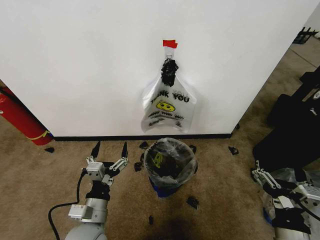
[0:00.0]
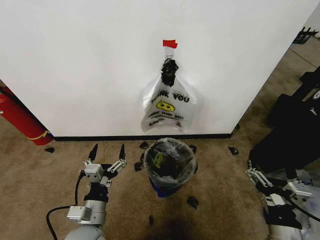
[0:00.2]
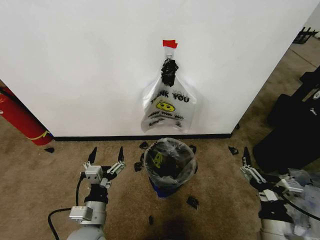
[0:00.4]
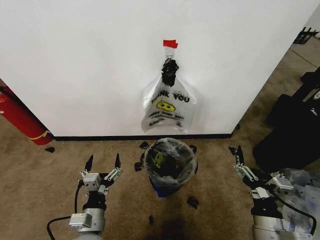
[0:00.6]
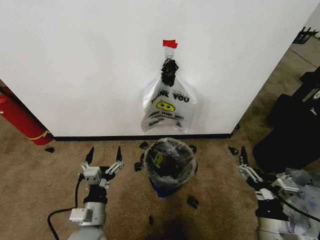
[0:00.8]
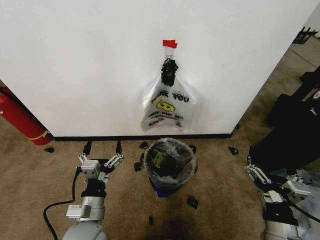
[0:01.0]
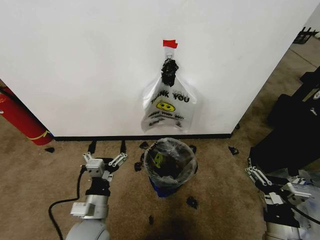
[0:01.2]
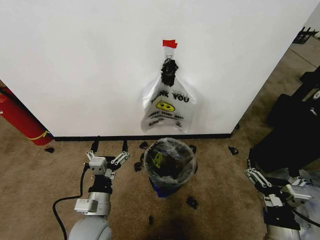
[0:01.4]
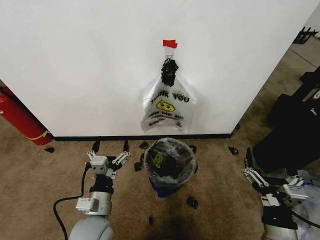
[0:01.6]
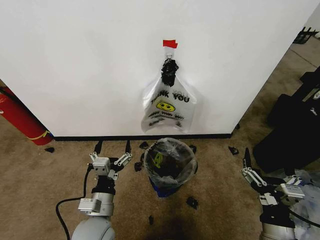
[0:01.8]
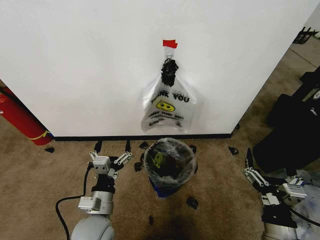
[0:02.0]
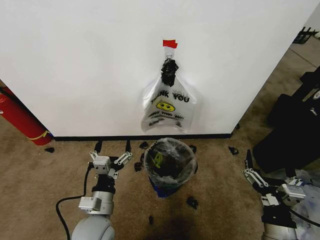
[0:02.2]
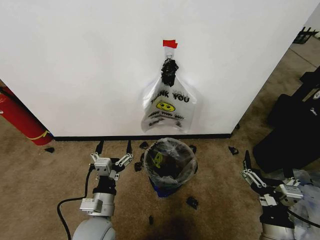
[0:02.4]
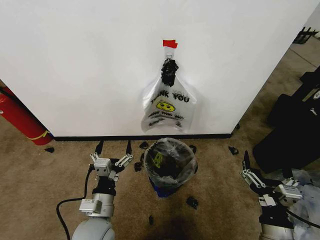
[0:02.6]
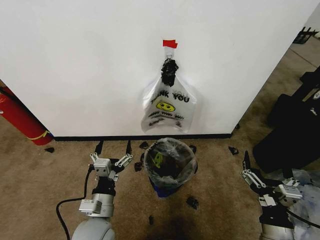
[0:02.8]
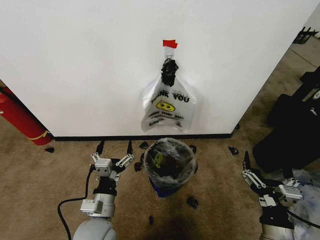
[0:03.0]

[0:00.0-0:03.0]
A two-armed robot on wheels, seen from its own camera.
Task of the whole recording: Pick up the garbage bag from the wall and place it over the trash bin.
0:00.0 to 0:01.6: The grippers move only a little.
0:01.6 to 0:03.0: Neither gripper changes place.
